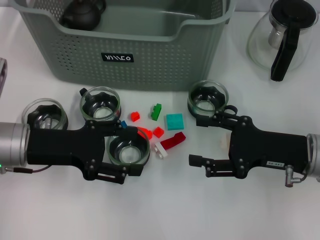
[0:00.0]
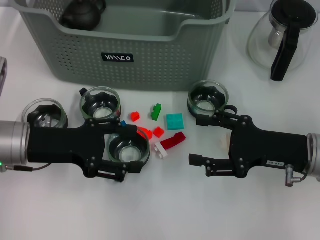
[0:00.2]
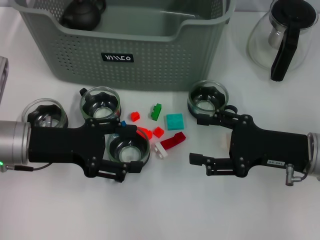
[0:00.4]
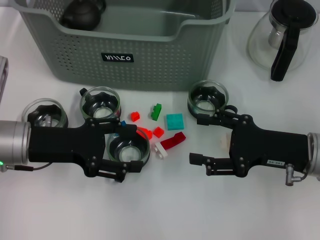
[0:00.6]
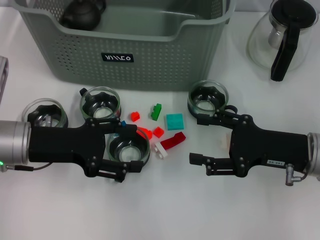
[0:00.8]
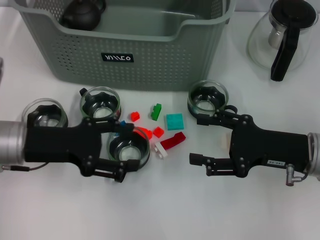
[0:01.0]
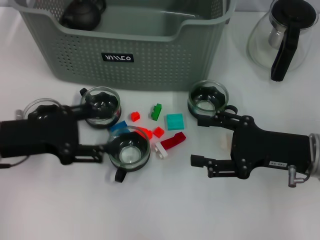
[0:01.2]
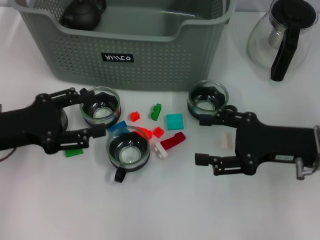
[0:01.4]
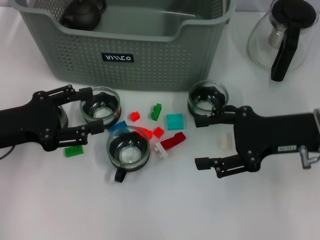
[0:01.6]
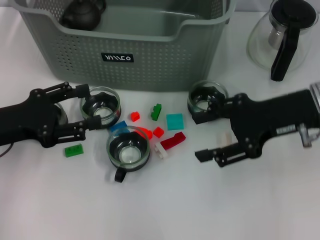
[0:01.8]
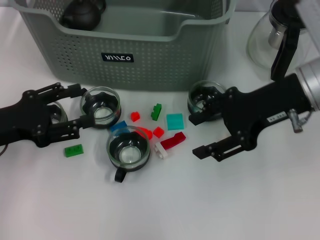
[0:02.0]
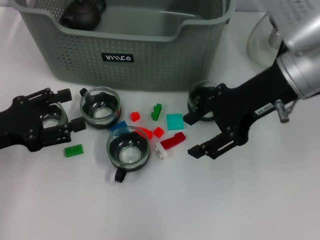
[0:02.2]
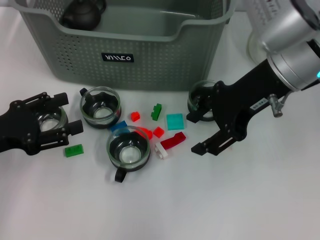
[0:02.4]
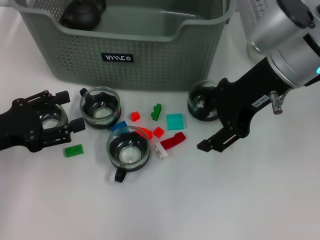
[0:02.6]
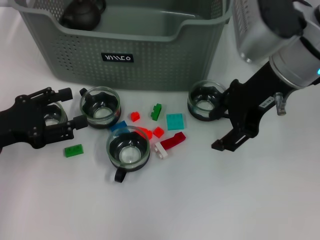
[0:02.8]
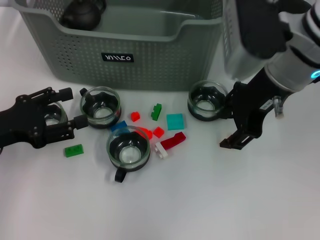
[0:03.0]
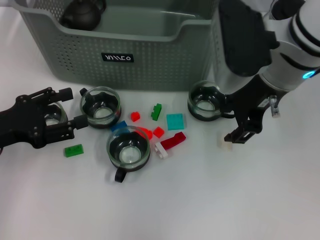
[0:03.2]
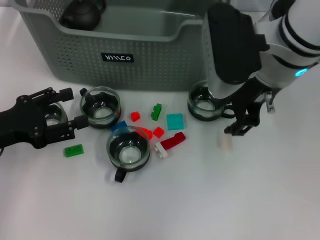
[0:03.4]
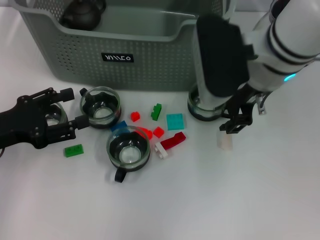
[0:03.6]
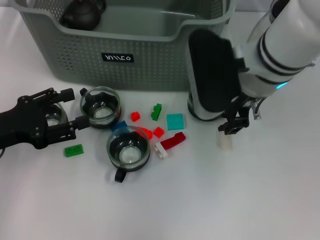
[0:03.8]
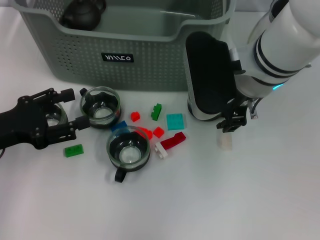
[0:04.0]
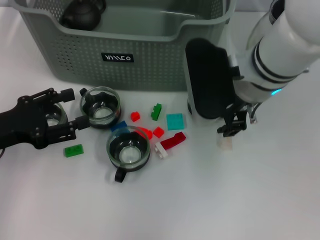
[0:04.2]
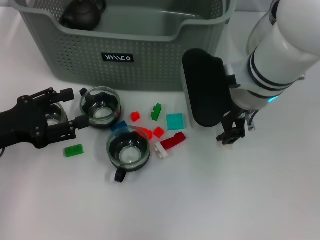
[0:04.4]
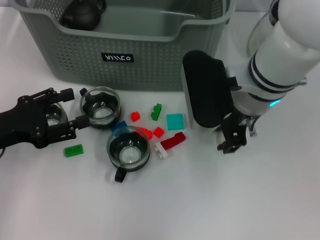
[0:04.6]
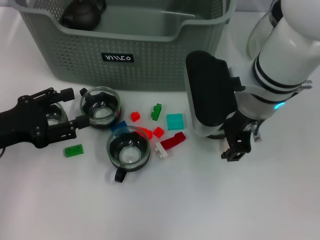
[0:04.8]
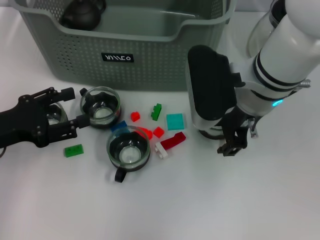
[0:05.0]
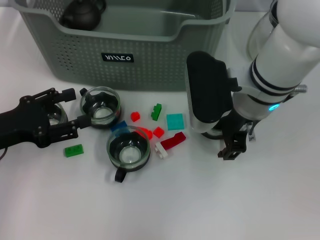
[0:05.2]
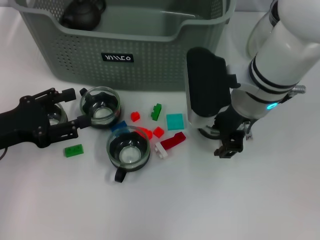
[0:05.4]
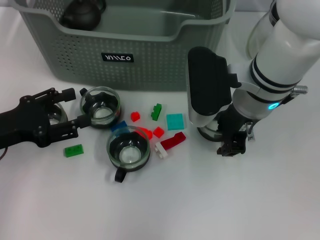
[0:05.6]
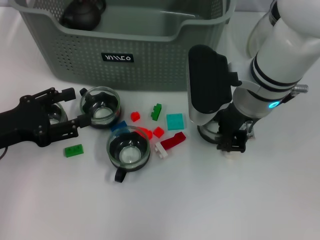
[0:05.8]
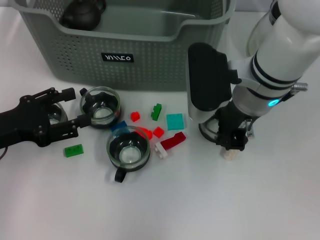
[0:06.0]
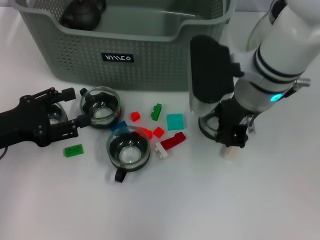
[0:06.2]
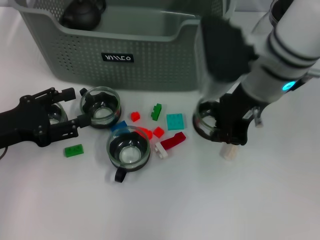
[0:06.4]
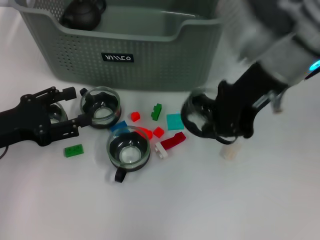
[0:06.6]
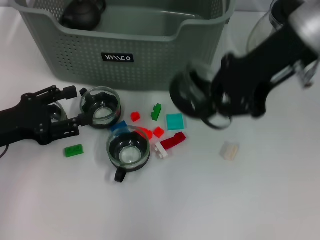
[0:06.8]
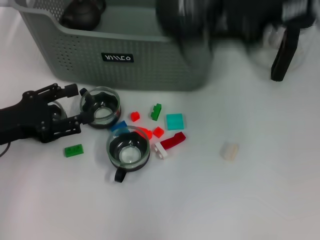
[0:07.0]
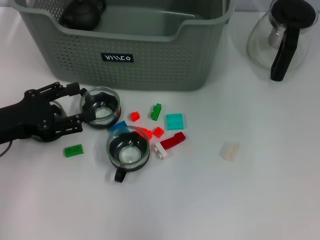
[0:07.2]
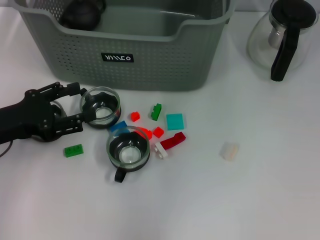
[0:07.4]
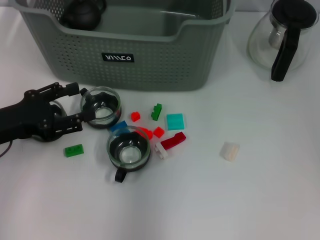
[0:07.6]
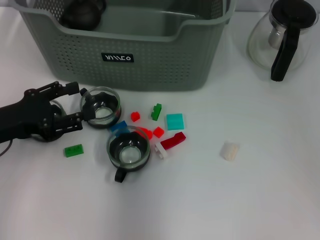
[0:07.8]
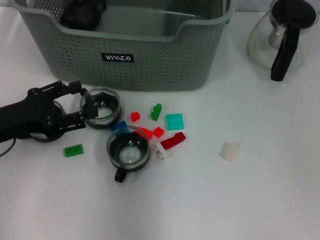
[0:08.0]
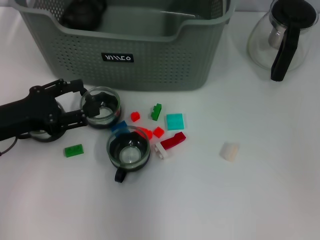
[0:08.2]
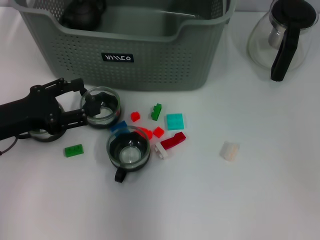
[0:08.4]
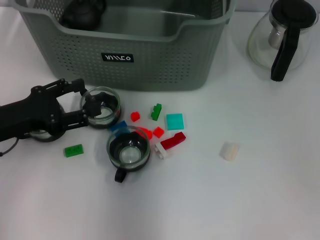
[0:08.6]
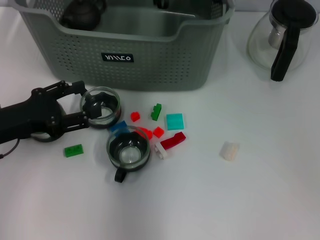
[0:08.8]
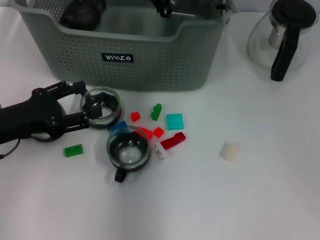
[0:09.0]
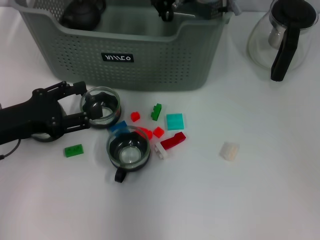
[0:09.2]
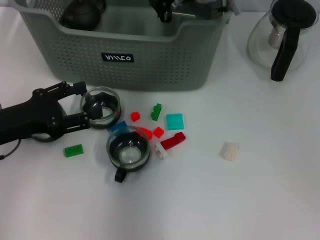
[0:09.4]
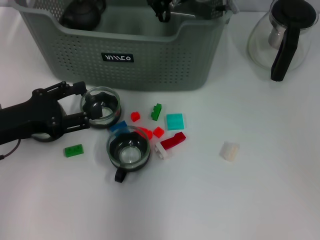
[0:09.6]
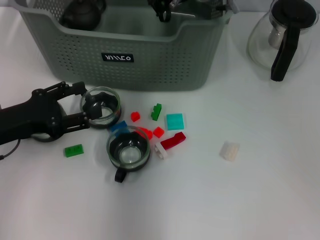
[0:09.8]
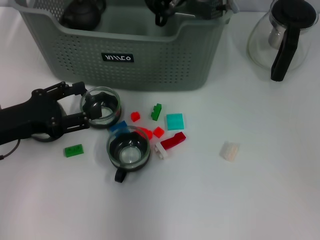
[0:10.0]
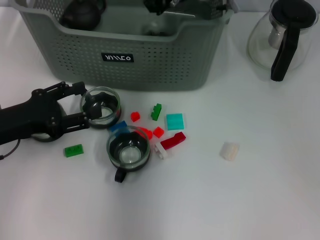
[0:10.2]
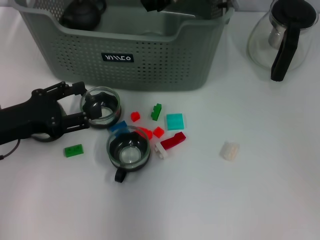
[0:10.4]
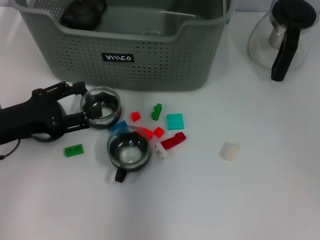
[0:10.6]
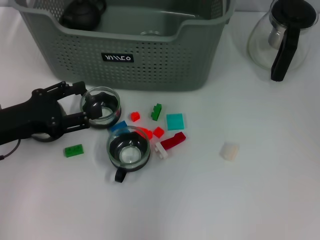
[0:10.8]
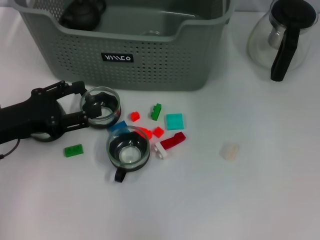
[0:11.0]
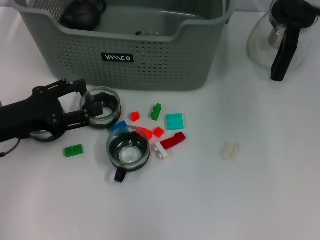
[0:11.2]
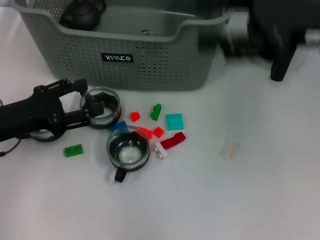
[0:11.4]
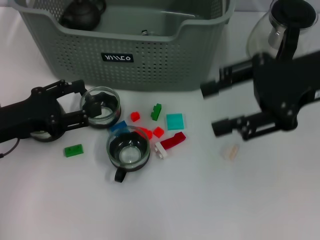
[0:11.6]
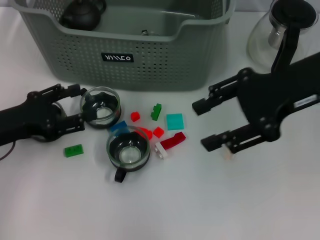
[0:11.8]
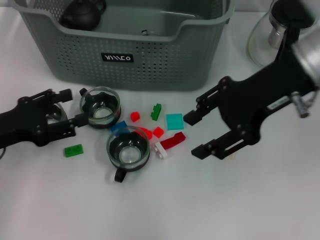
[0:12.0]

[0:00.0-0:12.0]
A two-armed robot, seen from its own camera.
Task of the whole recording: pick up the teacup on the table and place it into the storage bin, pick up the block on the table and place it into the storage bin.
Step, 0:00.0 to 0:05.8: Grasp the cup with right gripper.
Step, 0:06.0 to 0:10.4: Place the cup in the storage box with right gripper.
0:00.0 to 0:01.6: The left gripper travels to the left by approximately 5 cm. Meanwhile the right gripper changes place by approximately 5 cm.
0:01.6 to 0:03.0: The right gripper moves to the left, upward and forward, some 15 cm.
0:03.0 to 0:04.4: The right gripper heads downward, covering roughly 5 cm.
0:04.4 to 0:06.0: The right gripper closes up.
0:06.0 to 0:07.6: The right gripper travels upward and forward by roughly 20 cm.
0:07.6 to 0:09.0: The right gripper heads downward, covering roughly 15 cm.
0:10.4 to 0:12.0: The right gripper is displaced backward and to the right by approximately 15 cm.

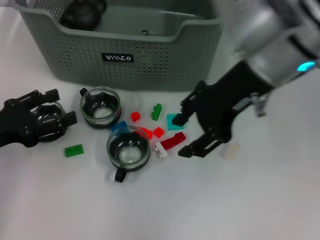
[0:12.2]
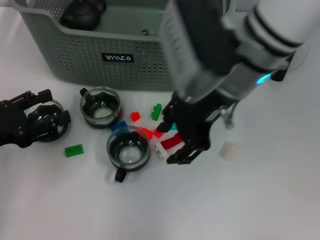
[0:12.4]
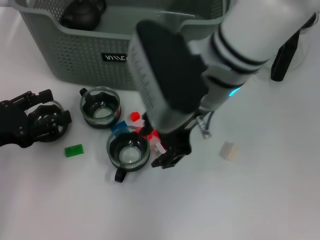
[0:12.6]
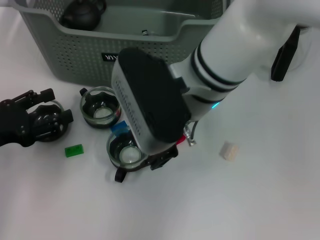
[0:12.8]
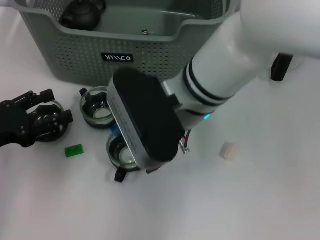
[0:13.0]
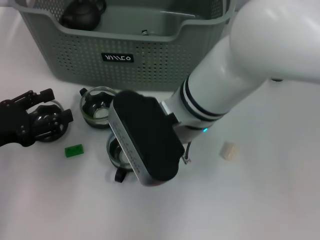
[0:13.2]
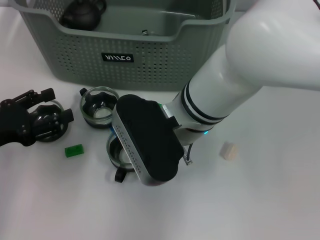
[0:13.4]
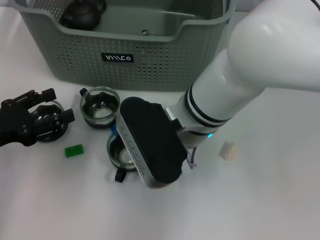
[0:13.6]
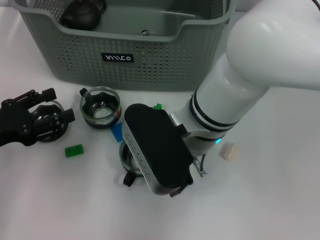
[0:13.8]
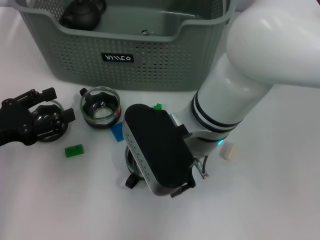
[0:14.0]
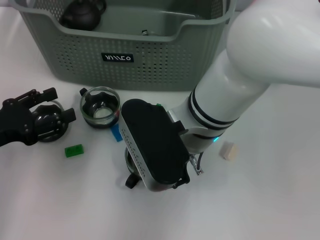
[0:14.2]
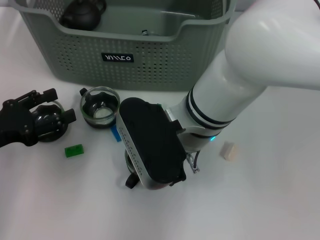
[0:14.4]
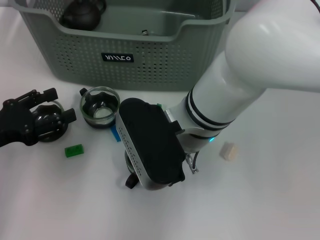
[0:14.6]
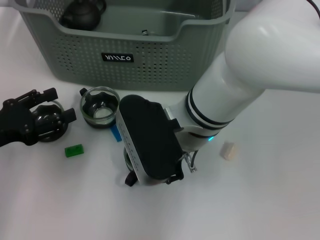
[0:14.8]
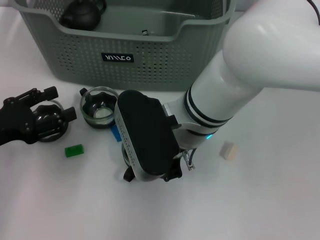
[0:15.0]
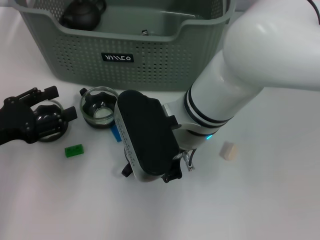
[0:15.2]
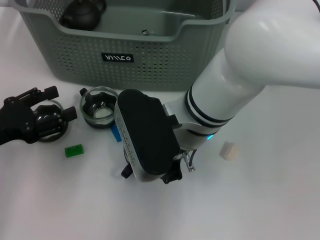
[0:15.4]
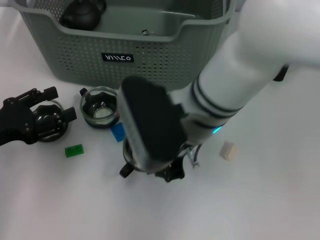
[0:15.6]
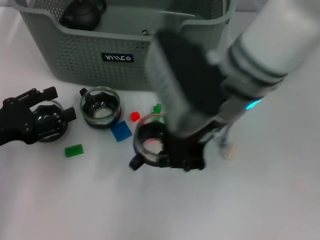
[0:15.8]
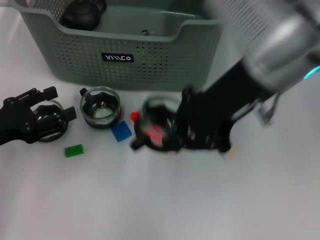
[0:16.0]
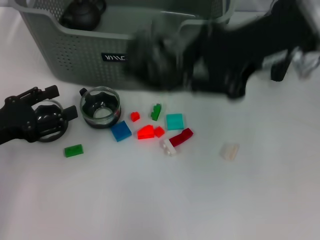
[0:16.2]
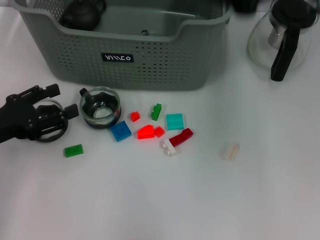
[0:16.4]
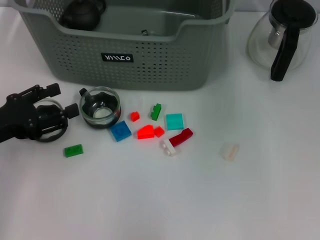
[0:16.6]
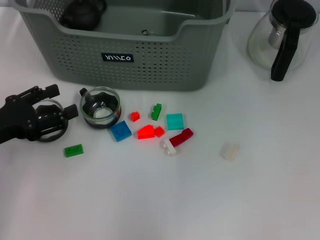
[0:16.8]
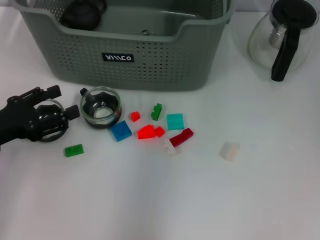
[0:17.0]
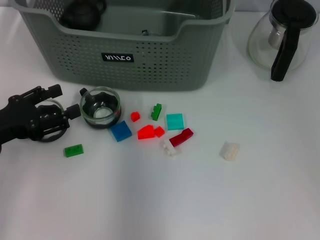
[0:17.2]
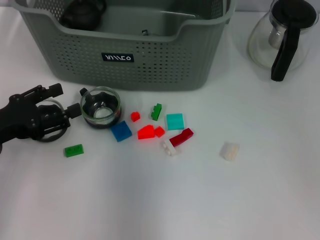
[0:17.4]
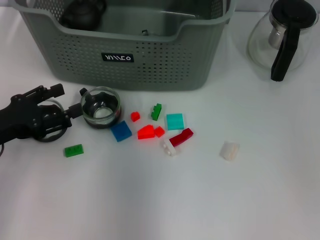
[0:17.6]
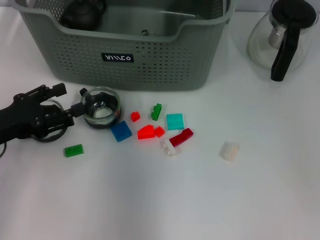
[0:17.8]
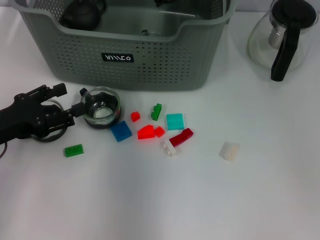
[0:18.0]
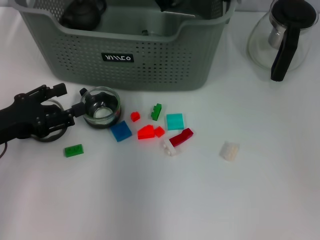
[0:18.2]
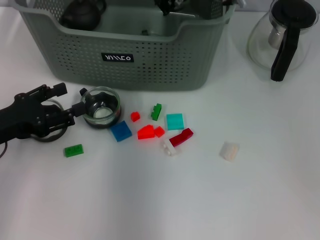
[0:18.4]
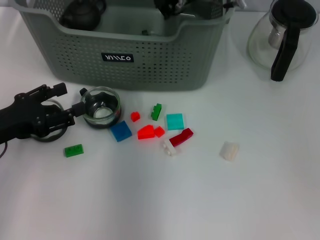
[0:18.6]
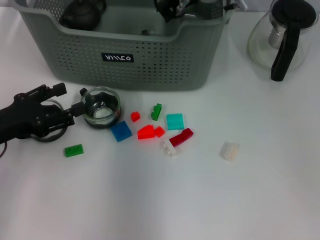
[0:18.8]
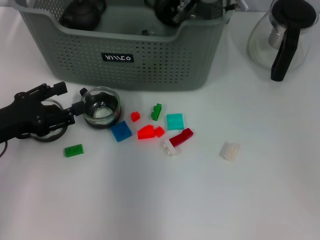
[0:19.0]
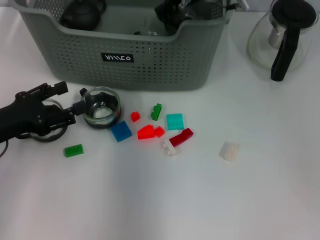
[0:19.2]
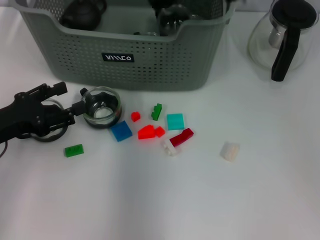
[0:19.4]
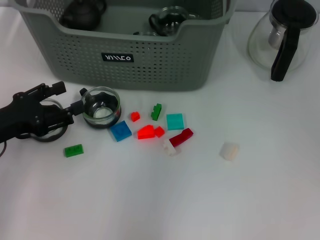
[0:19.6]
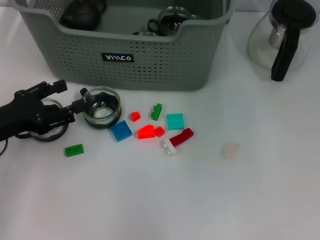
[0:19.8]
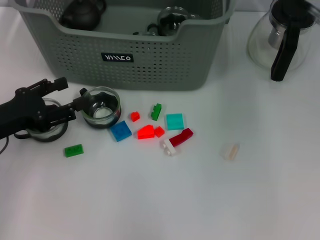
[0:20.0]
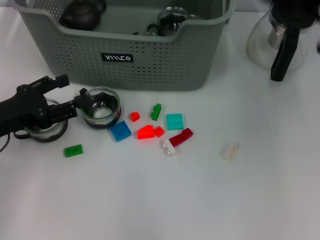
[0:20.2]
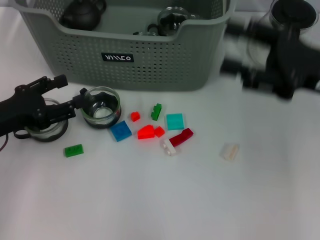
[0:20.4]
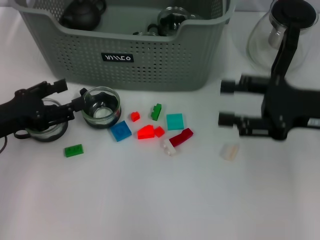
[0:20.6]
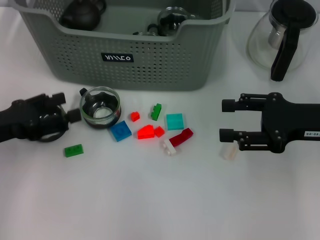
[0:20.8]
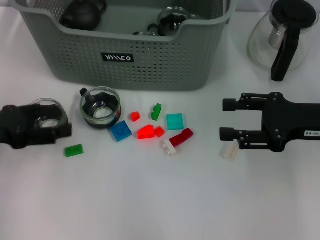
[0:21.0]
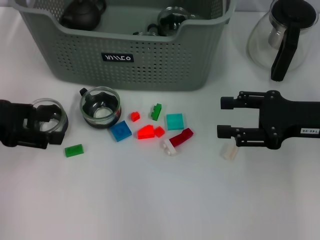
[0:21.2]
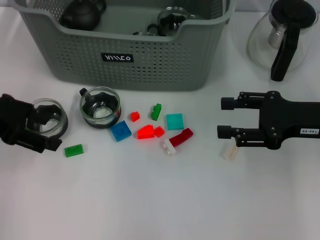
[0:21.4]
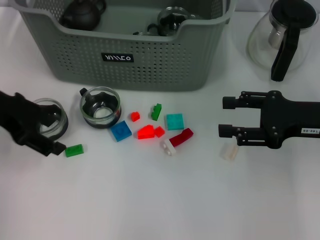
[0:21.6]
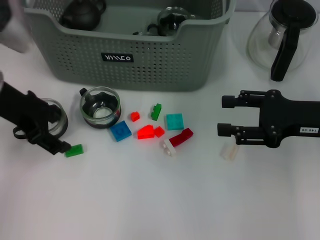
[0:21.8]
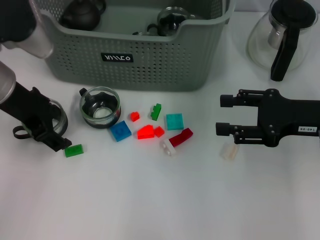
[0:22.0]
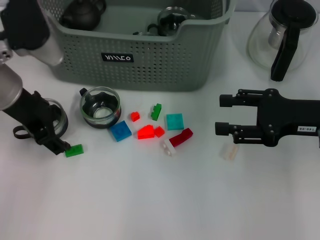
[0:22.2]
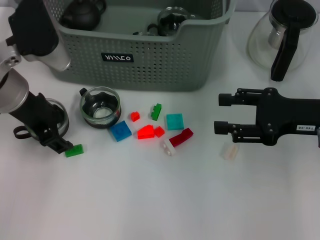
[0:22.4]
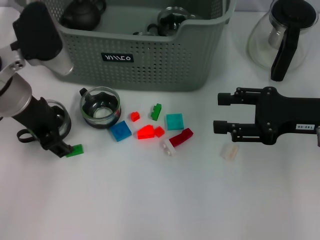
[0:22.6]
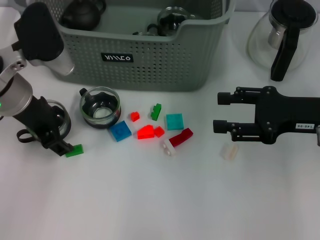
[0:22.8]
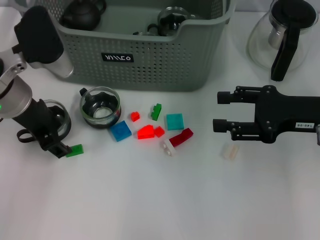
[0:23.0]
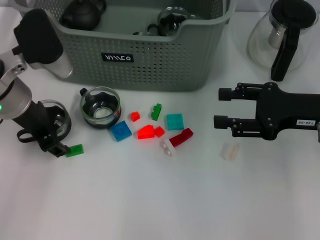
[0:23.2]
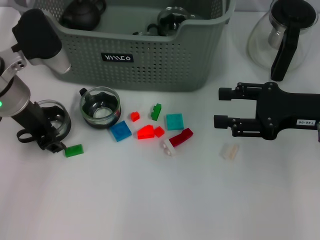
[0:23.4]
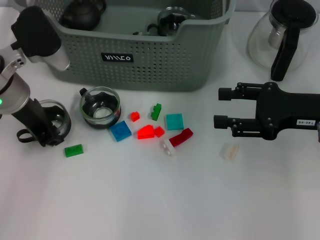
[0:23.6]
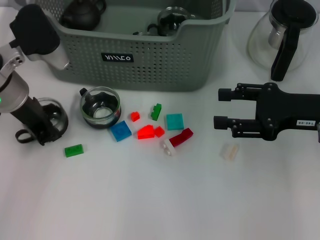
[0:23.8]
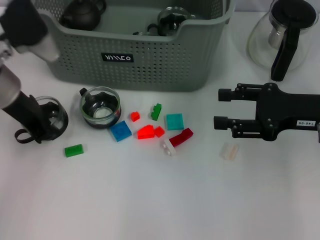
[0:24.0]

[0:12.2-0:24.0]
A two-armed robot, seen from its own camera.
Task of the whole recording: pick up the teacup on the table and place it into the storage bin, pick up the block on the table and place it into the storage bin.
Step, 0:12.2 to 0:15.2: Grasp the cup with right gripper.
Step, 0:15.4 to 0:19.4: Place the cup in the storage box with right gripper.
Step, 0:19.6 to 0:23.6: Grasp the cup with left gripper.
0:12.2 to 0:13.6: The right gripper travels to the left and downward by some 10 cm.
0:13.6 to 0:15.2: The right gripper closes up.
0:15.2 to 0:16.6: The right gripper shifts approximately 25 cm to the right, upward and forward.
0:16.6 to 0:18.2: The right gripper is displaced to the left, forward and downward by approximately 15 cm.
0:18.2 to 0:19.6: The right gripper moves approximately 5 cm, and opens.
0:19.6 to 0:21.0: The right gripper moves to the right, backward and downward, approximately 25 cm; the left gripper ends up some 5 cm from where it was.
0:21.0 to 0:22.6: The left gripper travels to the right and forward by about 15 cm.
0:22.6 to 0:24.0: The left gripper closes its fingers.
